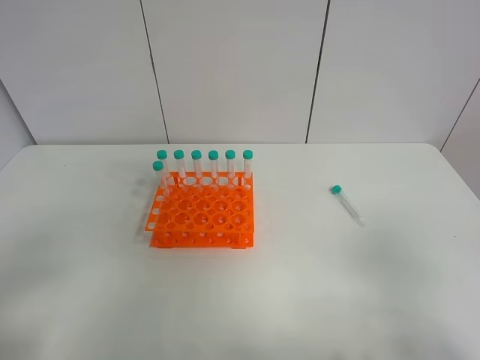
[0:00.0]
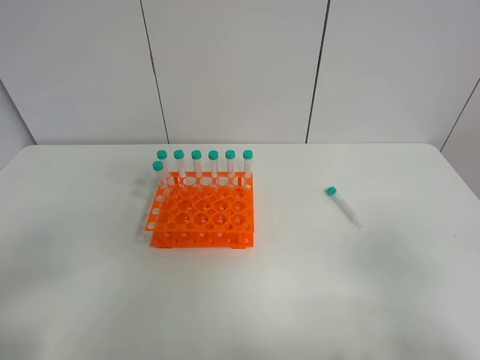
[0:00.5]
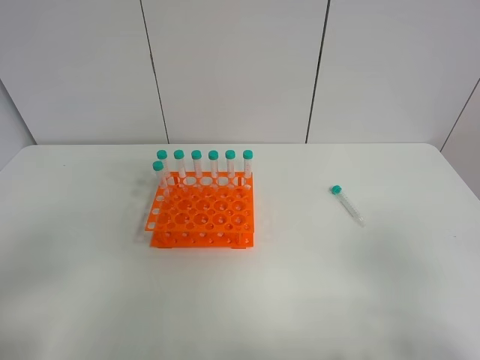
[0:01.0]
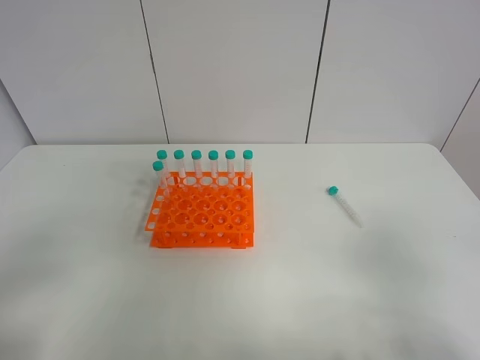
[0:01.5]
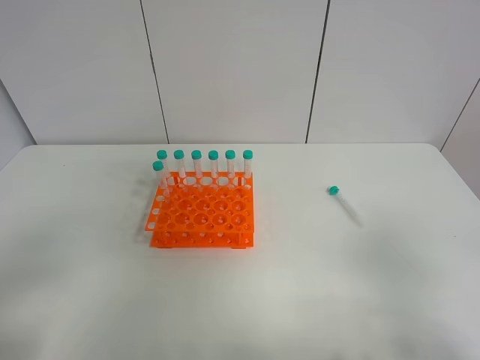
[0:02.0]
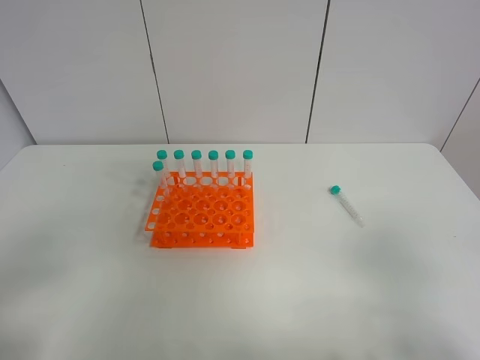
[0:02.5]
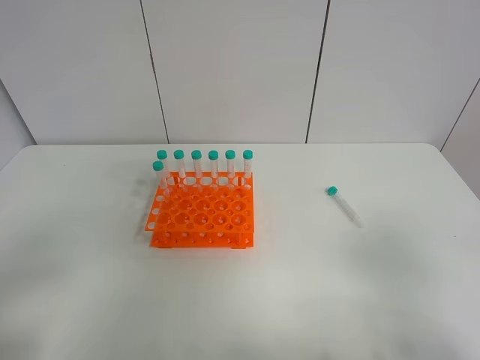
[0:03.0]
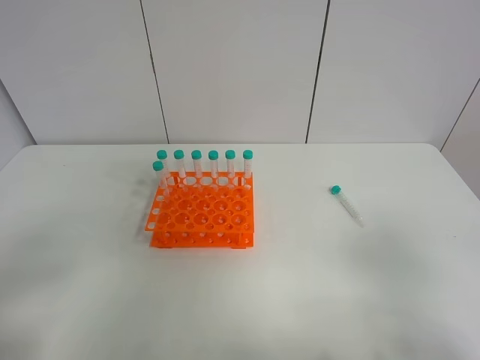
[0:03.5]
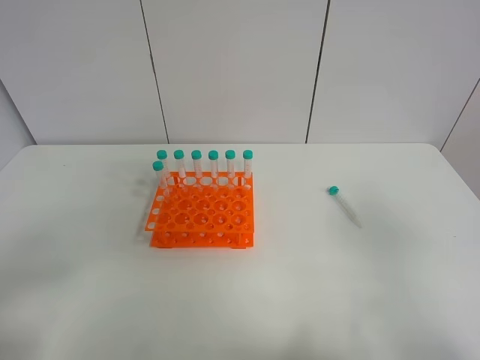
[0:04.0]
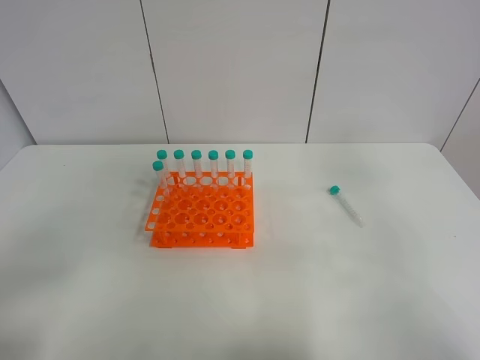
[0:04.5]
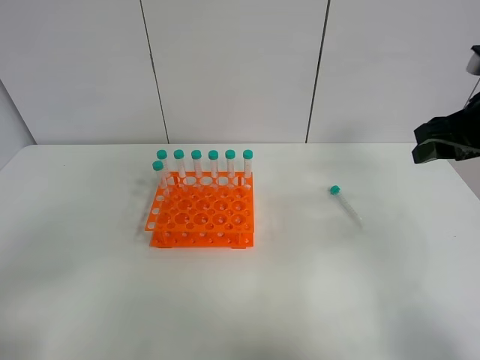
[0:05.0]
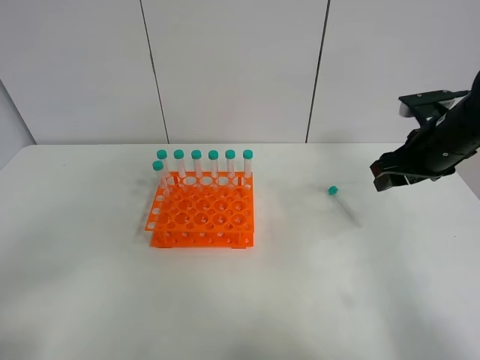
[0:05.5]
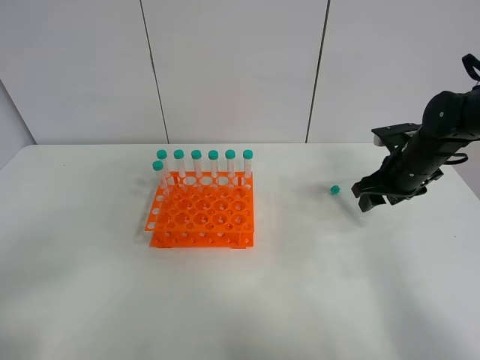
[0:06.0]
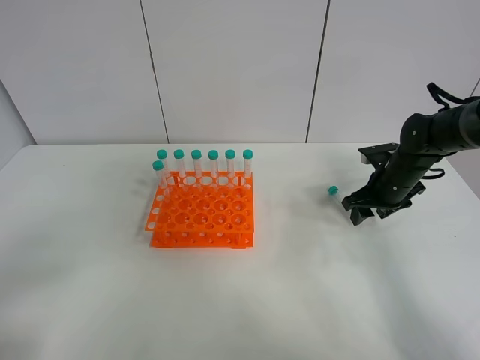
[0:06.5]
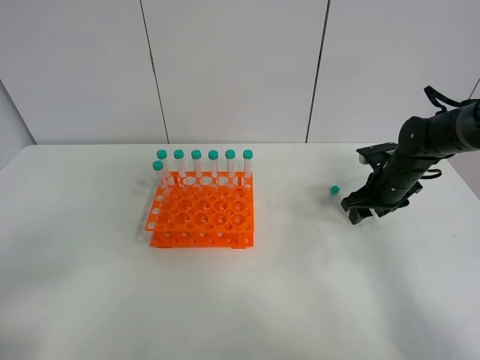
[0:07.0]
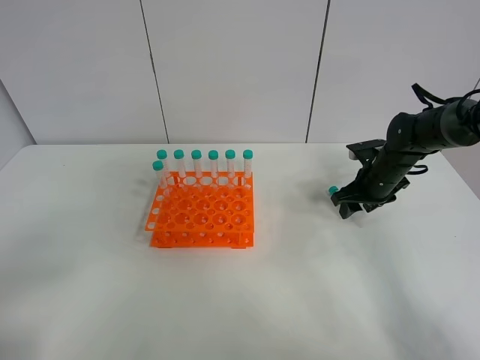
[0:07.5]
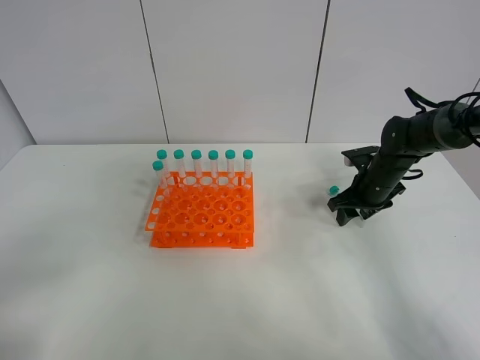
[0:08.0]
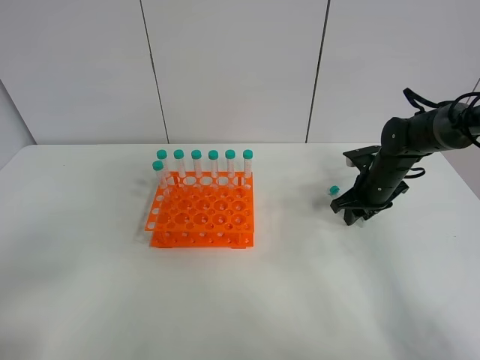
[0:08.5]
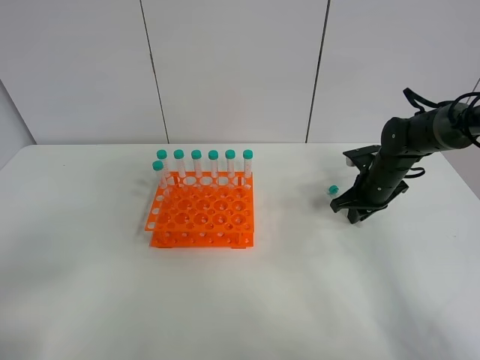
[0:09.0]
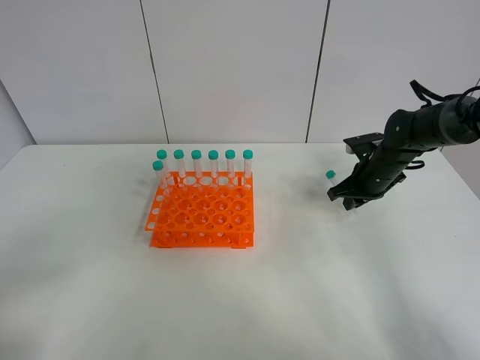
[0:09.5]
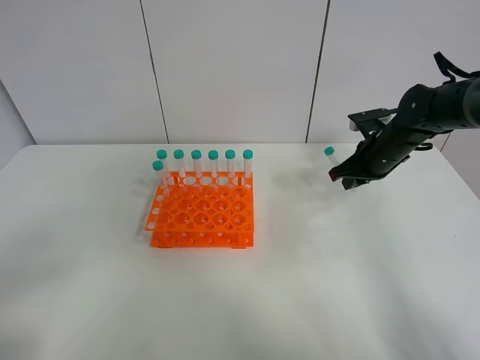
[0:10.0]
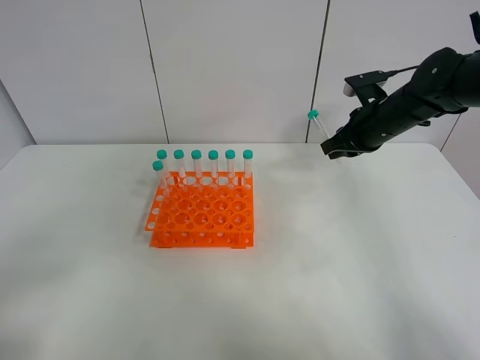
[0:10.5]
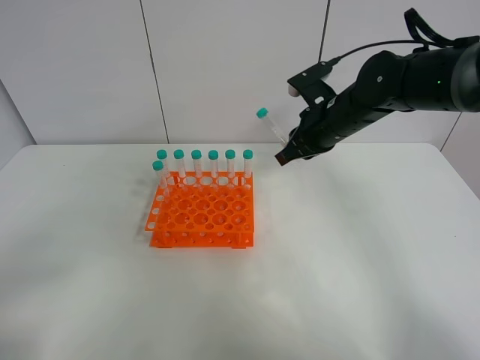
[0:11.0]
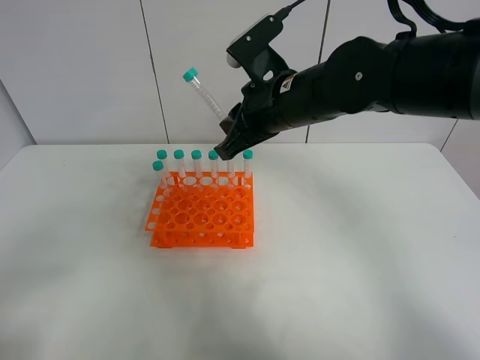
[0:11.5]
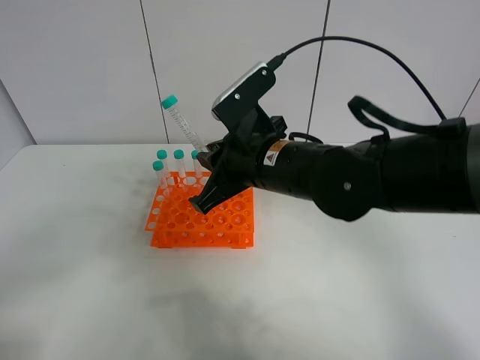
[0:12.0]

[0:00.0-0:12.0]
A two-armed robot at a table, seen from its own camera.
Task of the whole recording: Put the test tube on the table back onto the test tube rack.
Step, 0:00.0 to 0:10.5: Pick up the test tube with the right gripper.
0:00.0 to 0:02.0: Both grippers stay about where they are.
0:04.0 to 0:06.0: The right gripper goes about 35 cm forward and downward.
0:06.0 to 0:08.0: The right gripper travels downward by approximately 5 cm.
0:08.0 to 0:10.0: The right gripper is displaced upward by roughly 5 cm, and closes.
0:10.0 to 0:12.0: The right gripper travels to the left and backward by about 25 cm.

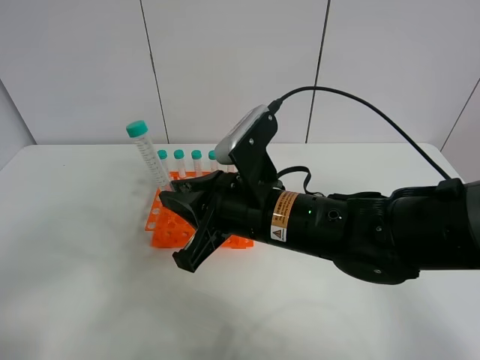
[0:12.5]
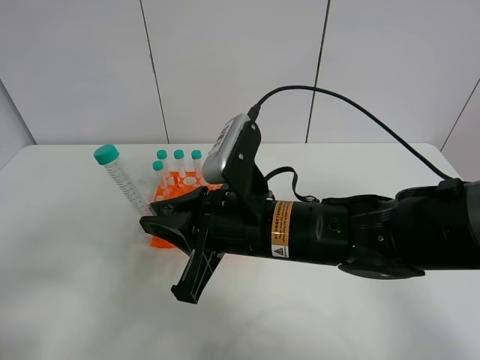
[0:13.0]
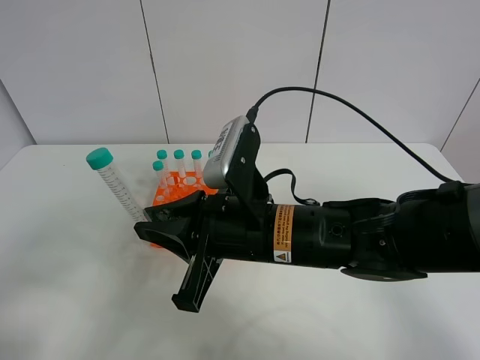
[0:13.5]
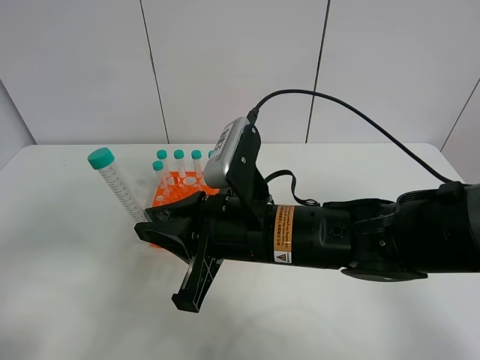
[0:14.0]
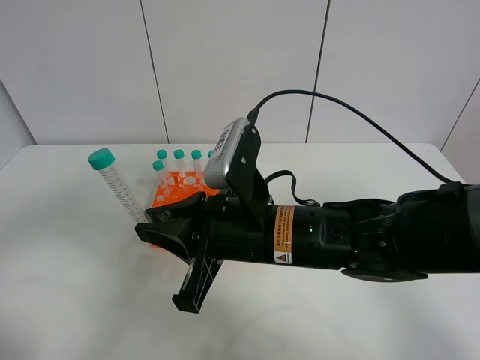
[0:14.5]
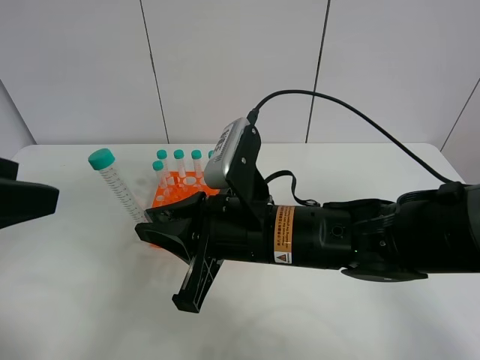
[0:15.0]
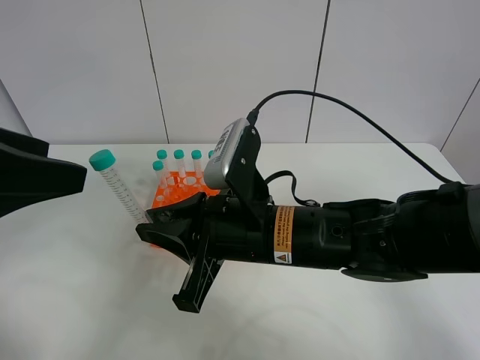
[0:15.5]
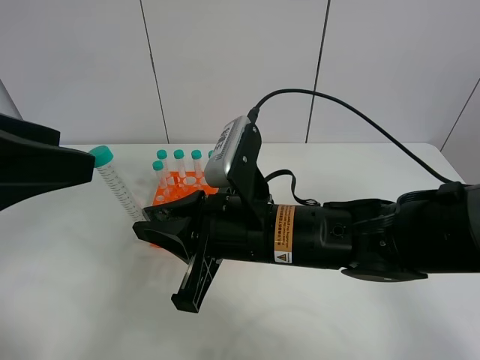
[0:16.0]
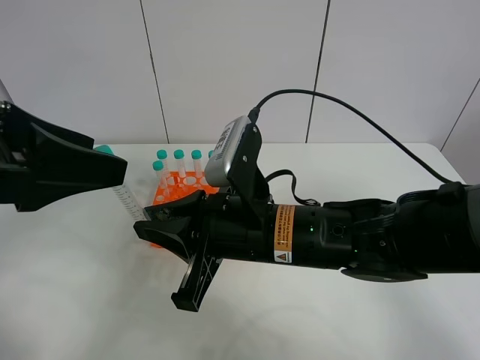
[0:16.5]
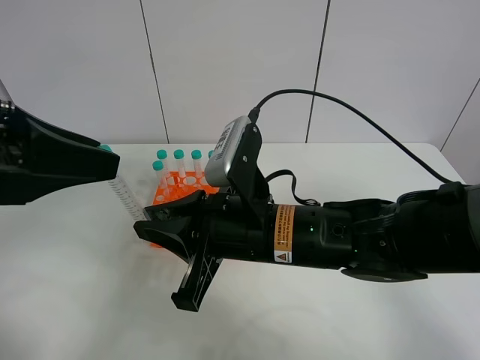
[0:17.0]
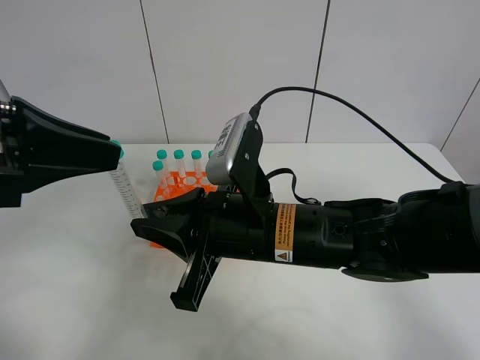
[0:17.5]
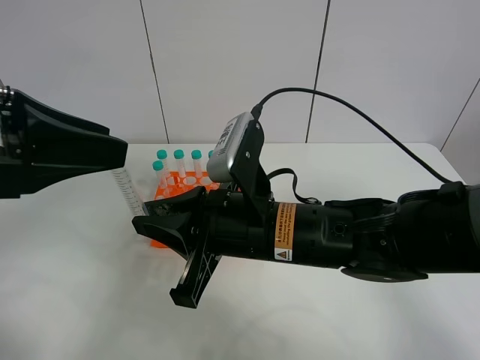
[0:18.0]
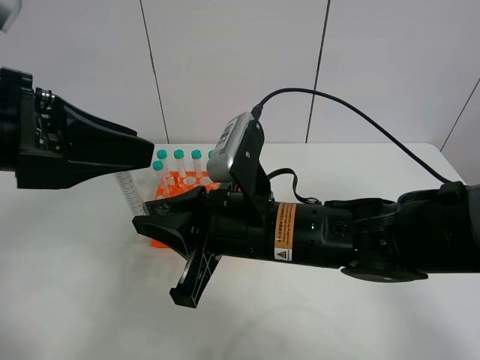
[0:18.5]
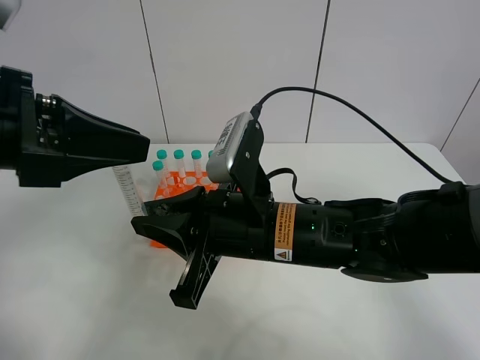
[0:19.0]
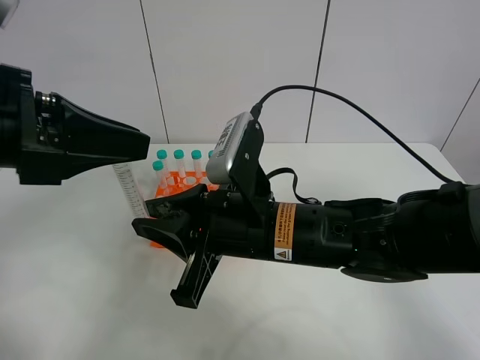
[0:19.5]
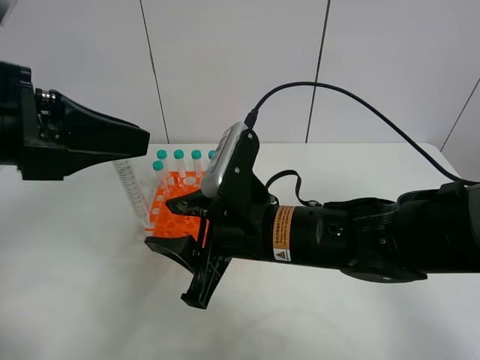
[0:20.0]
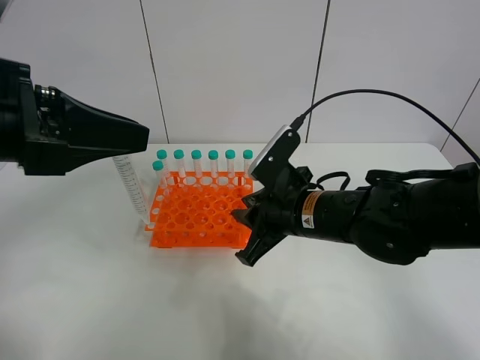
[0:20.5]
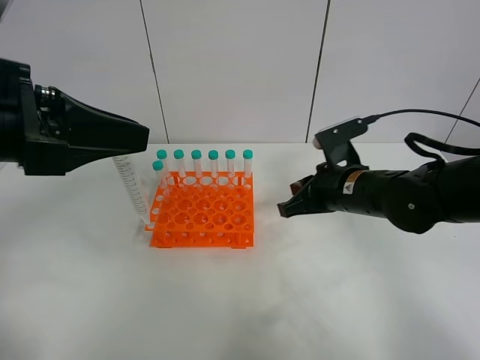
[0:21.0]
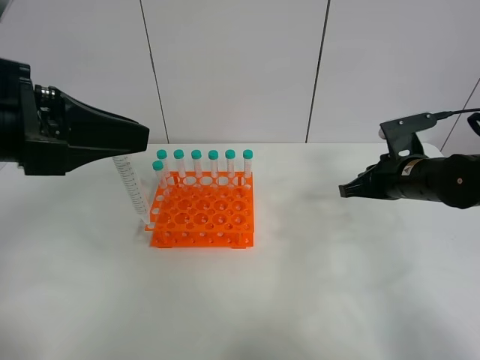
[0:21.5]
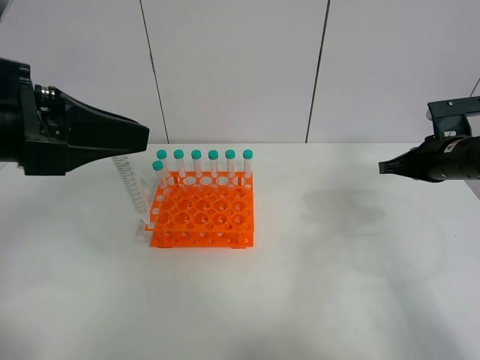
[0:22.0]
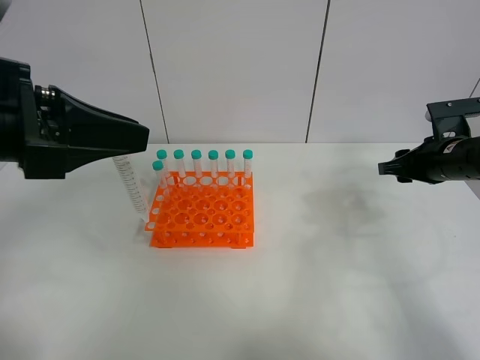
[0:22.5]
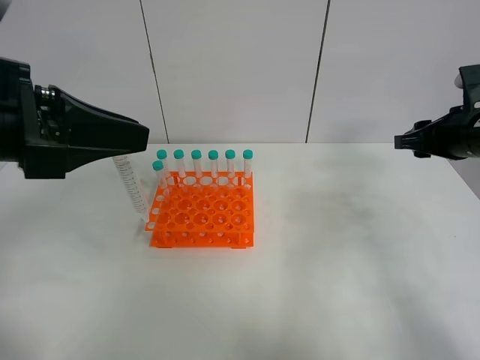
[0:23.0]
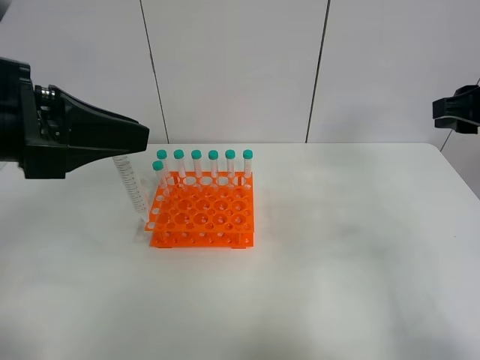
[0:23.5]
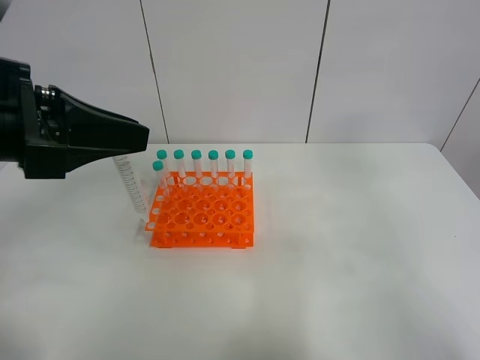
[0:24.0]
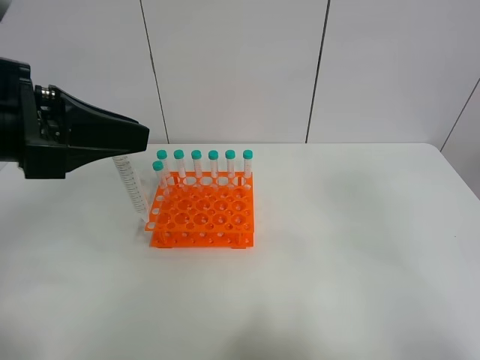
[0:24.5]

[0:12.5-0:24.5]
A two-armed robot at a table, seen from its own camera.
Task of the whole recording: Put the test tube on the table back onto the test tube rack.
Step, 0:12.5 to 0:20.5: Move the test tube from the right gripper to the left gripper.
0:12.5 to 0:14.5: The left gripper is displaced forward and upward by about 10 cm.
0:14.5 to 0:16.5: The left gripper shifts some 10 cm forward and to the right.
0:16.5 to 0:18.5: The left gripper closes up.
0:18.5 to 0:20.5: The left gripper closes. Meanwhile the right gripper moves to the right and forward, approximately 10 cm, and opens and closes again.
0:20.5 to 0:22.5: The right gripper goes roughly 20 cm to the right, and opens its fingers.
0:22.5 to 0:24.5: The right gripper is displaced backward and upward by roughly 35 cm.

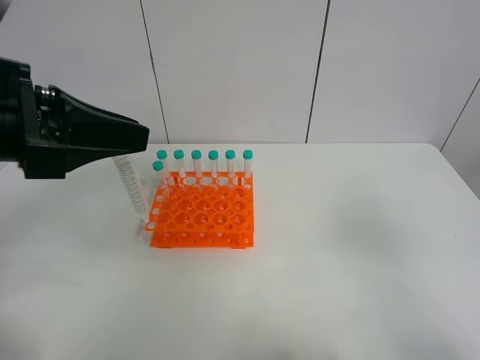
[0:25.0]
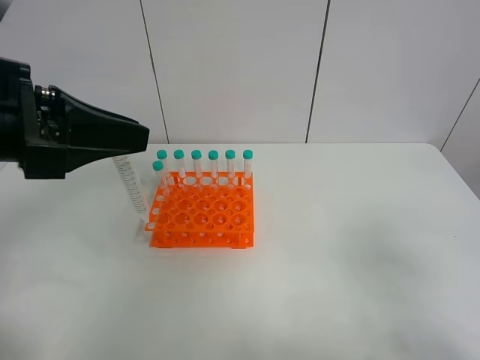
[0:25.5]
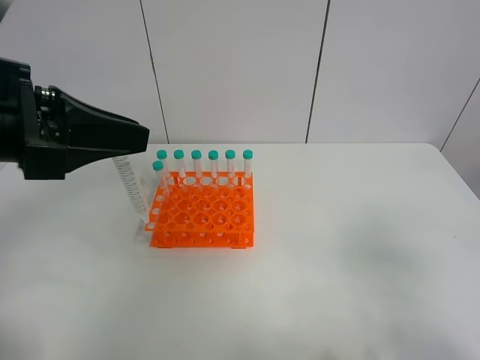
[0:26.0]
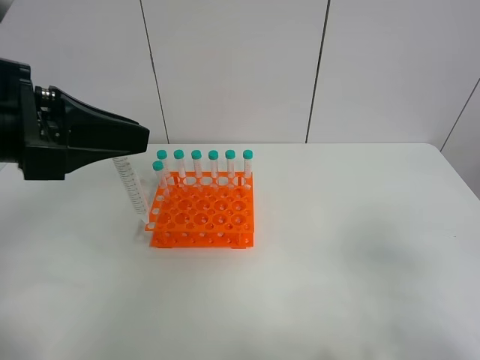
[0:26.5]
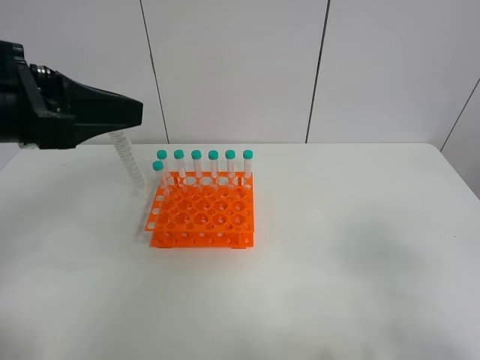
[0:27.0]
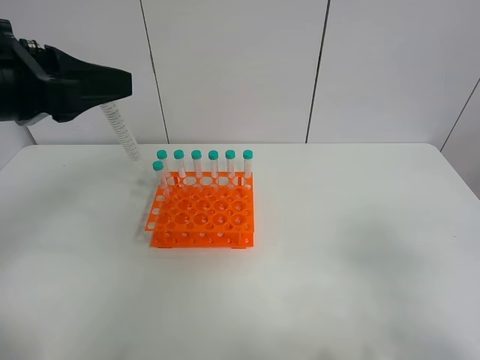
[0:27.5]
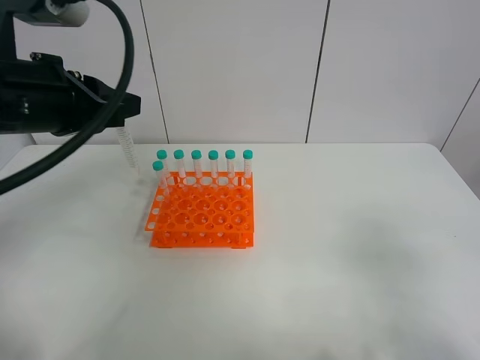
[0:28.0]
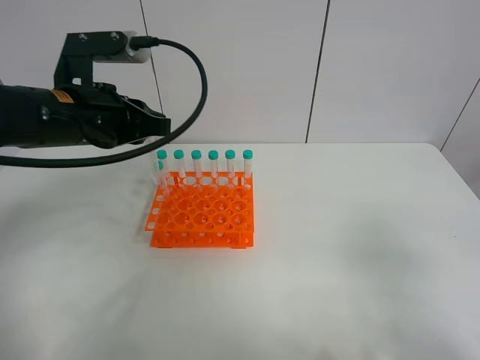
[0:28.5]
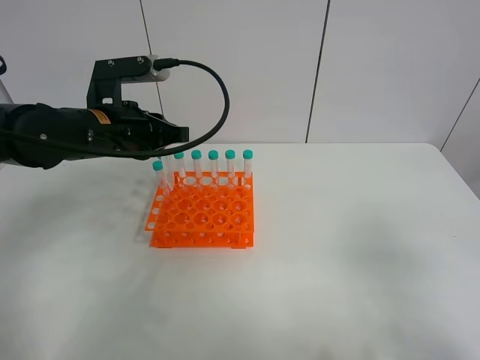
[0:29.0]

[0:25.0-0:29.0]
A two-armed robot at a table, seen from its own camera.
Task of the whole recording: Put the test tube on the table back onto the test tube rack.
0:27.0 to 0:29.0: The left gripper travels forward and downward by about 15 cm.
